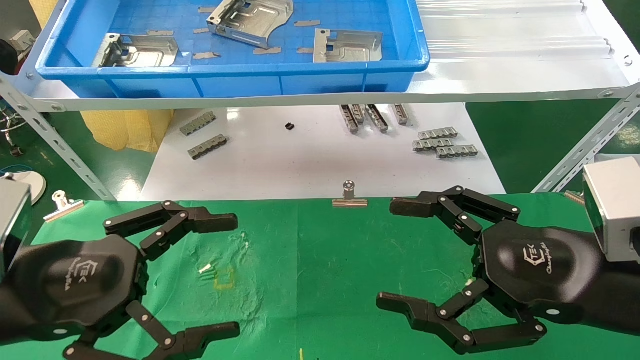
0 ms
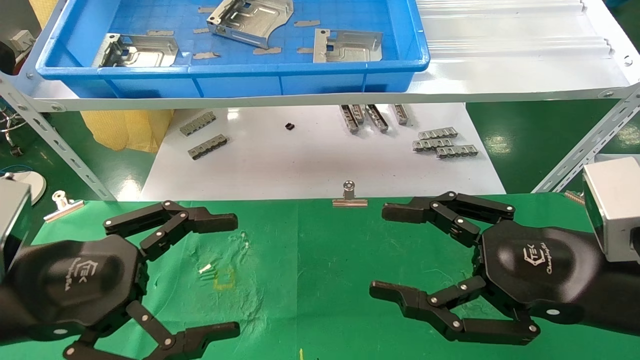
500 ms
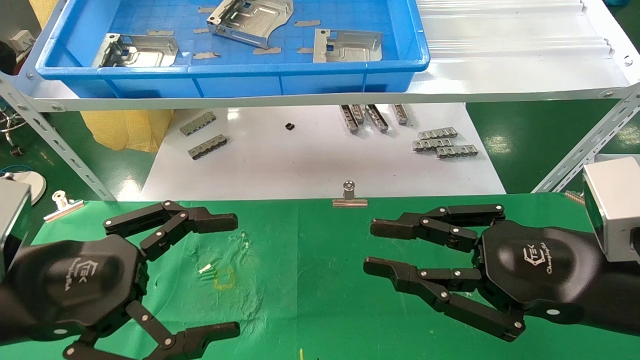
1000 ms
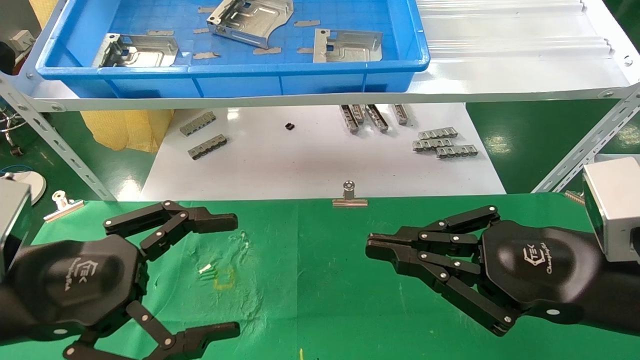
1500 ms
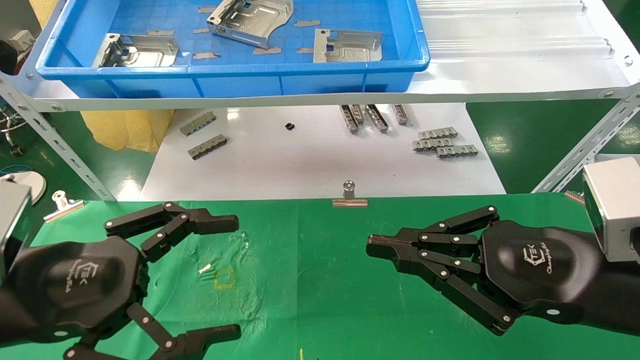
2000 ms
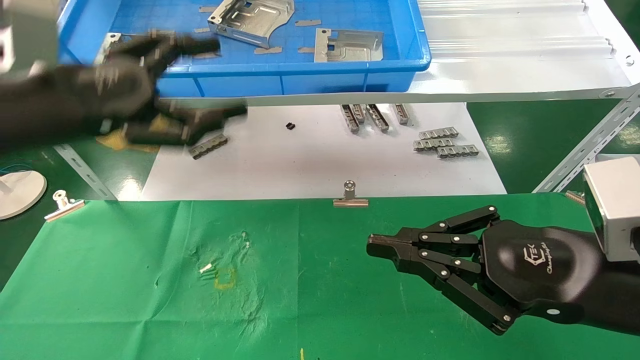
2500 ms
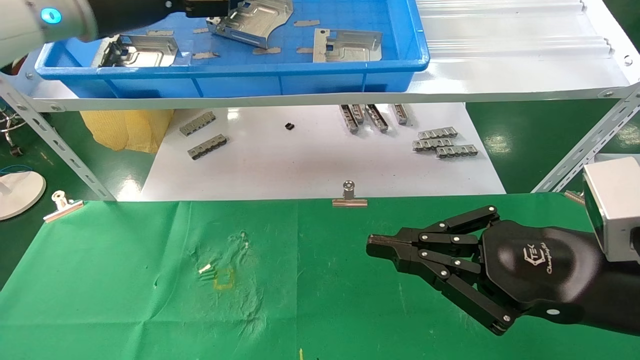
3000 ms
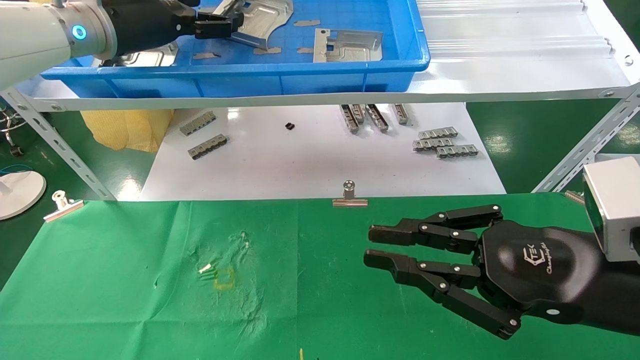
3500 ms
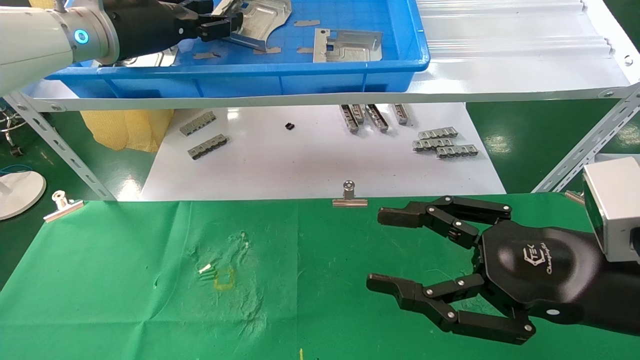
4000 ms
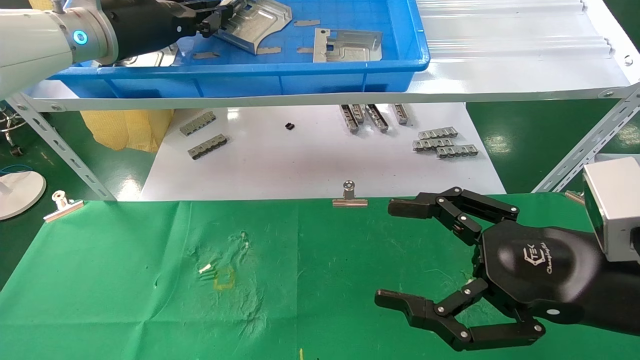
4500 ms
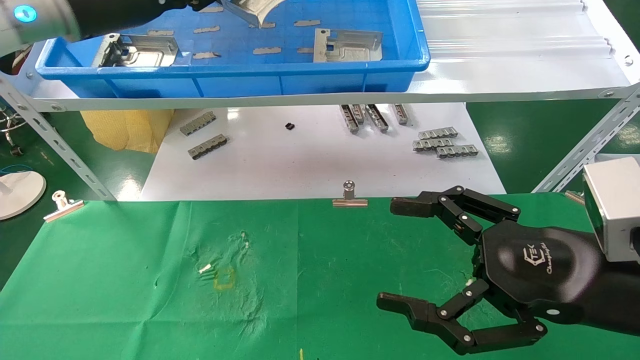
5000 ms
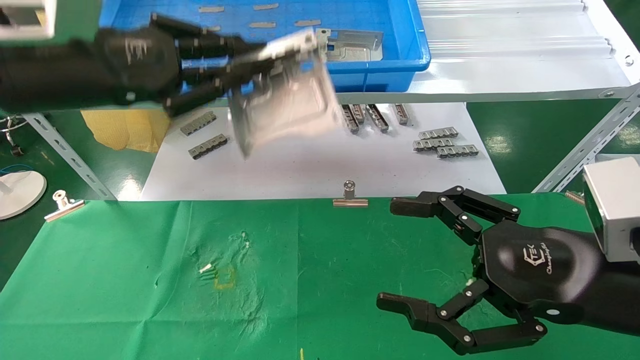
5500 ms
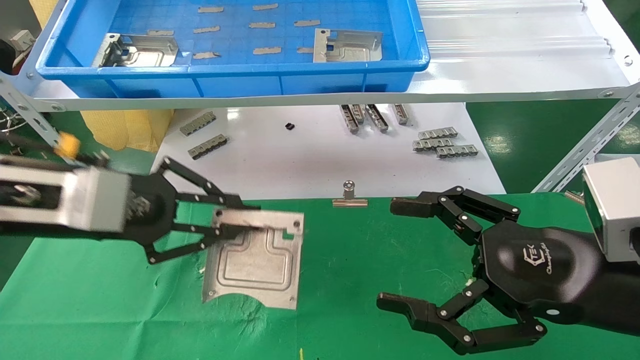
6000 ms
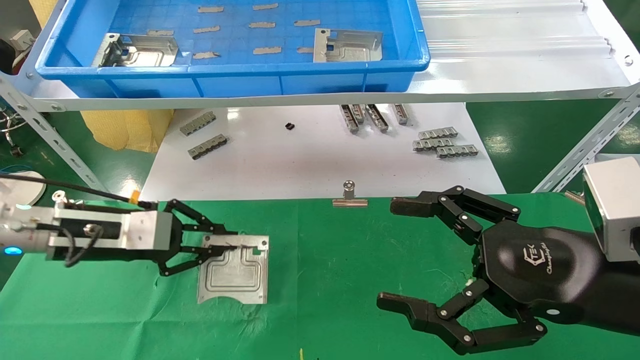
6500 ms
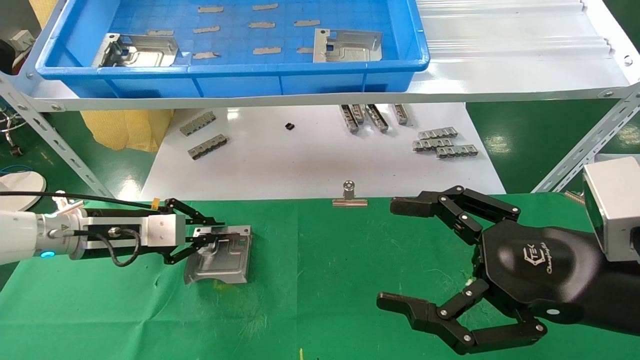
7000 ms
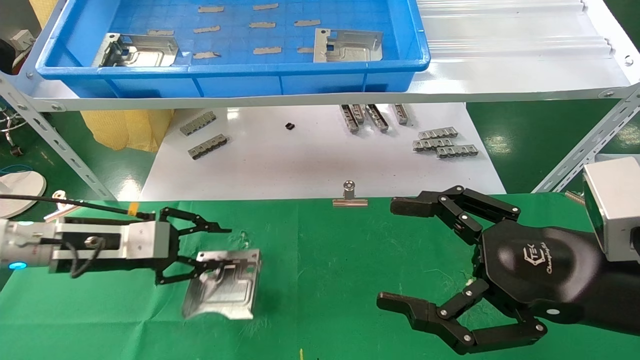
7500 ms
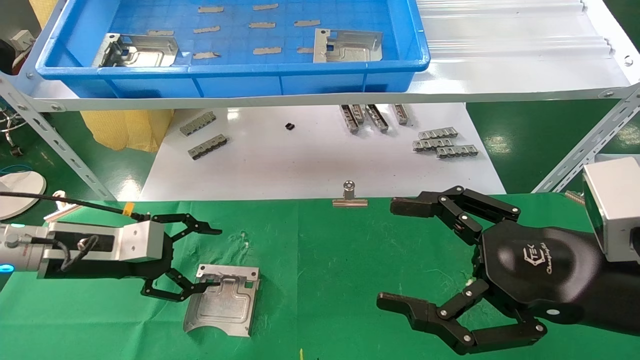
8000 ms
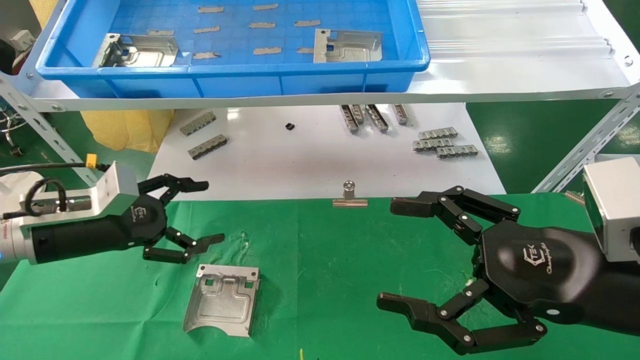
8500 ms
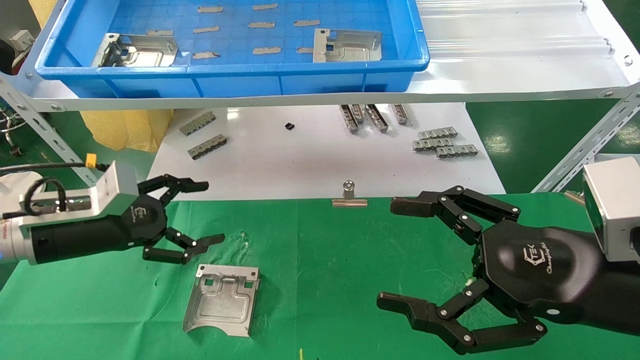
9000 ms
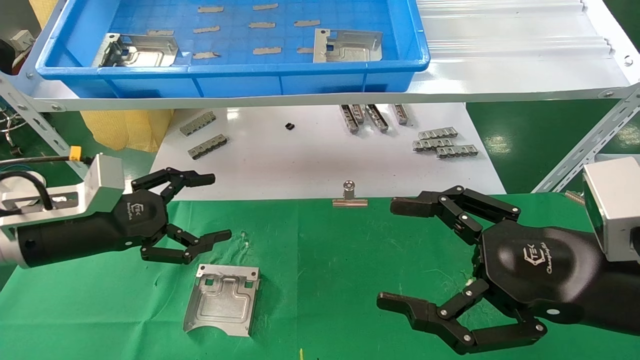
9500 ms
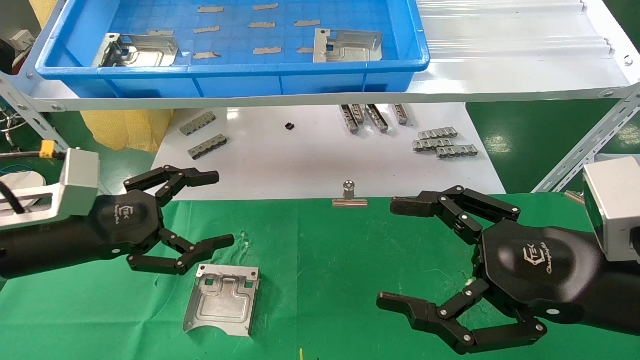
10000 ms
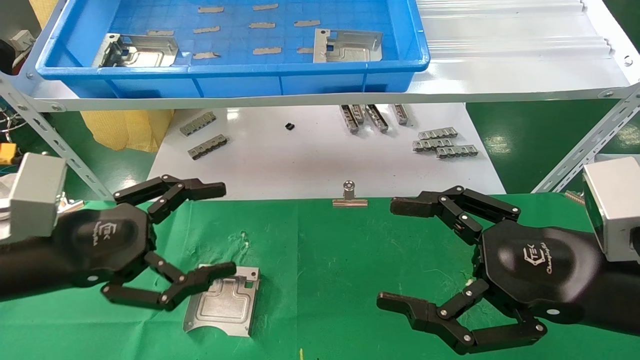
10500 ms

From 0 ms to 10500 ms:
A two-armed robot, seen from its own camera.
Task of the whole recording: use the mechanical arm to pick up the parts and place them on the table.
Step, from 2500 ms to 4000 ms: Pick up the hard drive bracket from the feeding area.
Step, from 4500 ms to 8000 ms: Place the hard drive bracket into the box.
From 0 ms to 2000 ms: The right gripper closes.
From 2000 ms to 4000 ms: The right gripper opens up. The left gripper heads forward and upward, covering about 30 cm, and closes its fingers.
From 4000 ms to 6500 ms: The right gripper opens its fingers; the left gripper goes about 25 cm downward, and closes up.
From 6500 ms to 8500 ms: The left gripper opens its fingers.
From 8500 ms to 10500 ms: The left gripper goes roughly 10 cm backward.
